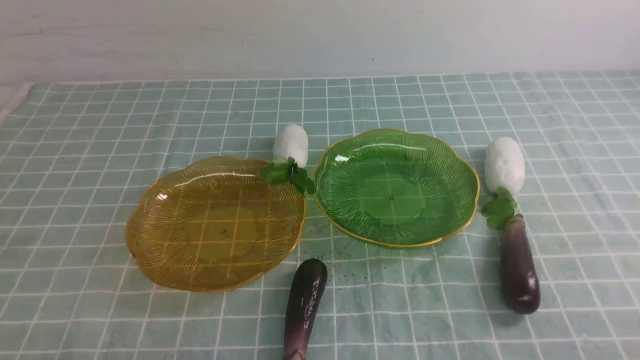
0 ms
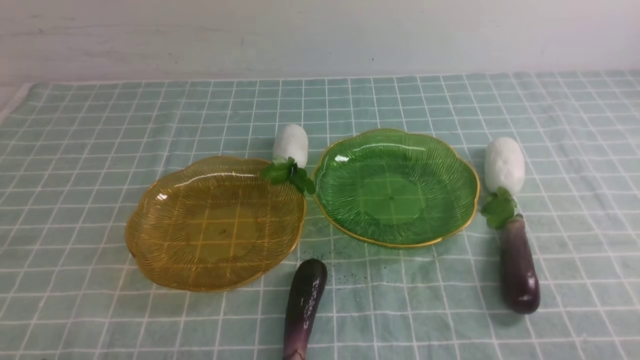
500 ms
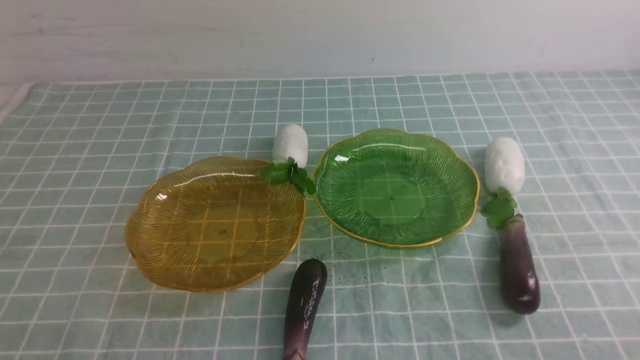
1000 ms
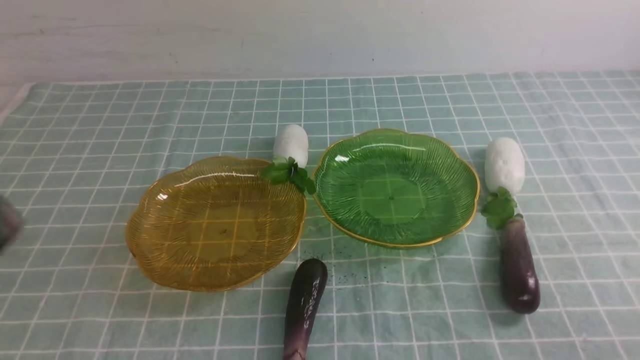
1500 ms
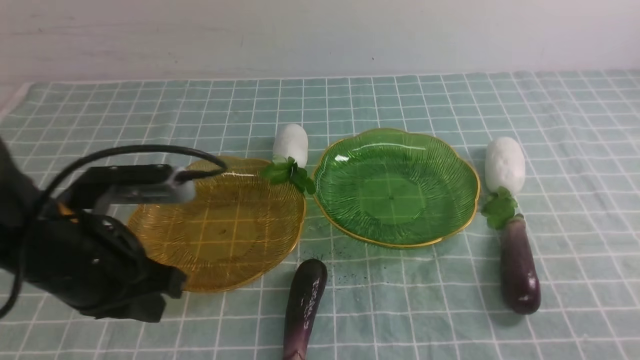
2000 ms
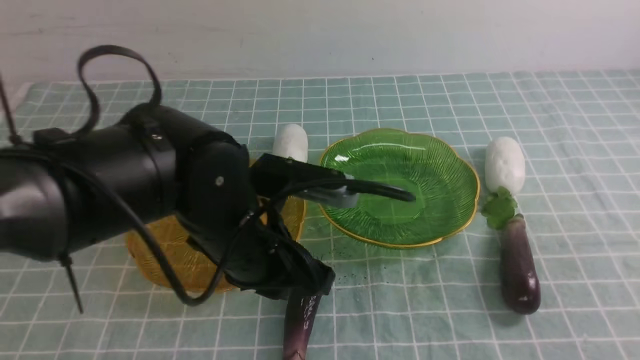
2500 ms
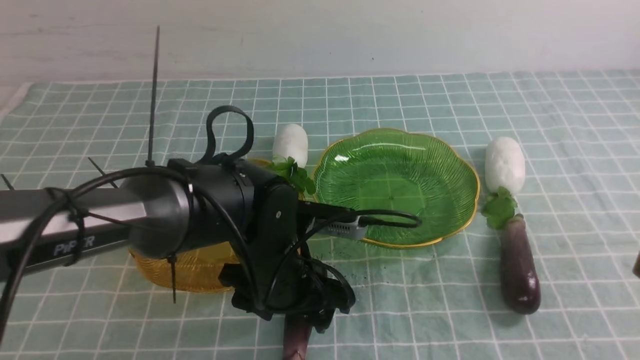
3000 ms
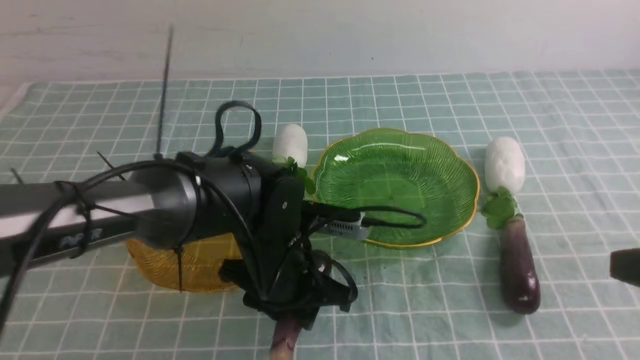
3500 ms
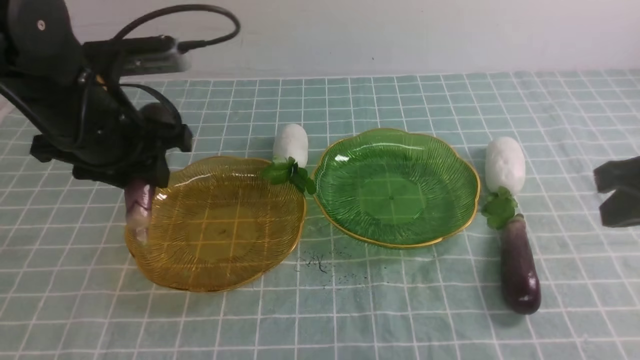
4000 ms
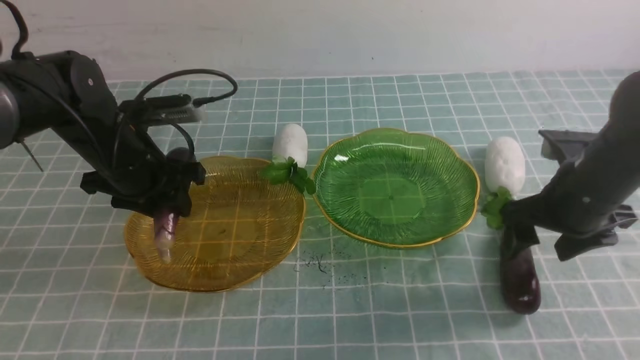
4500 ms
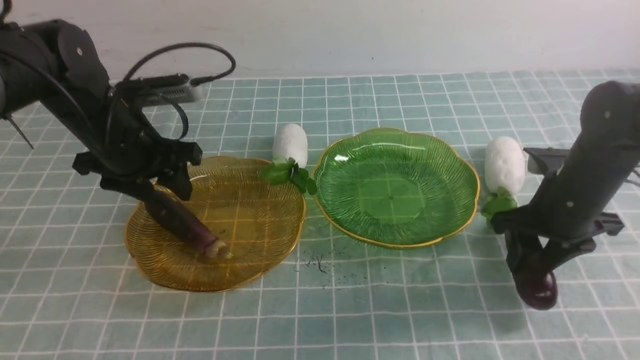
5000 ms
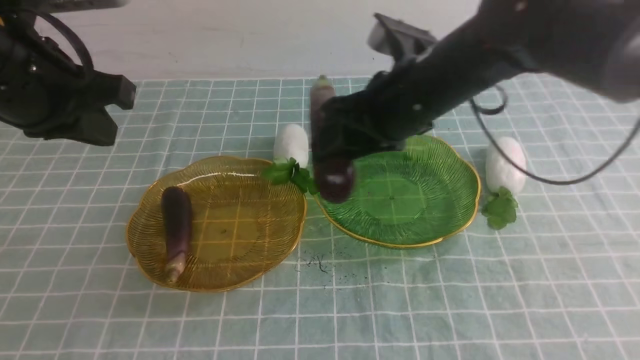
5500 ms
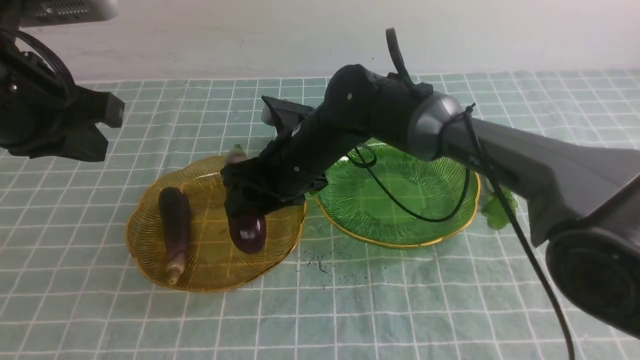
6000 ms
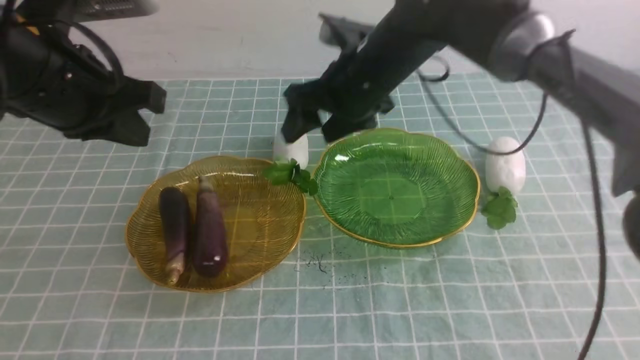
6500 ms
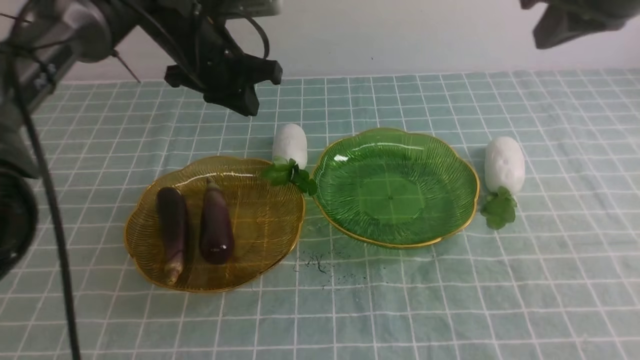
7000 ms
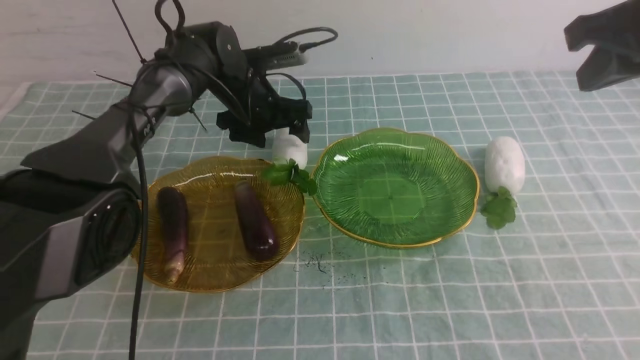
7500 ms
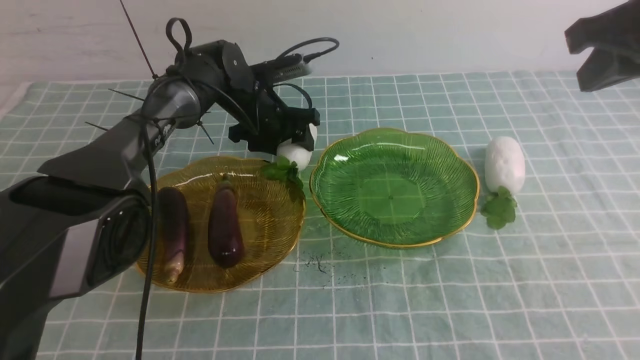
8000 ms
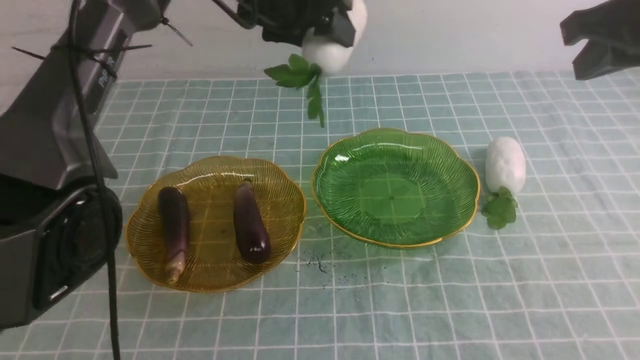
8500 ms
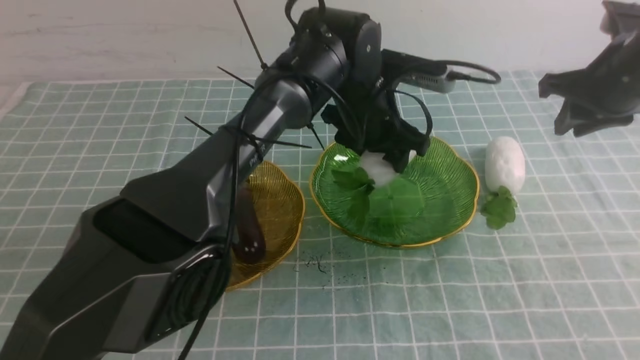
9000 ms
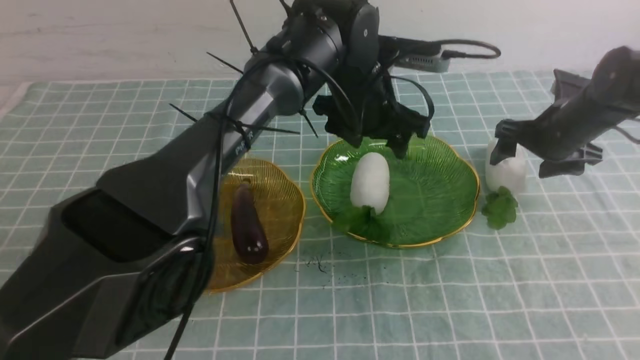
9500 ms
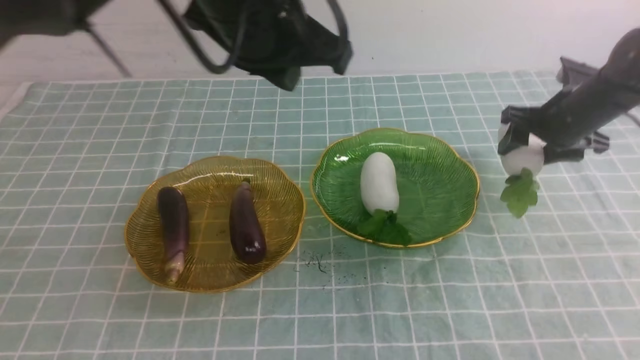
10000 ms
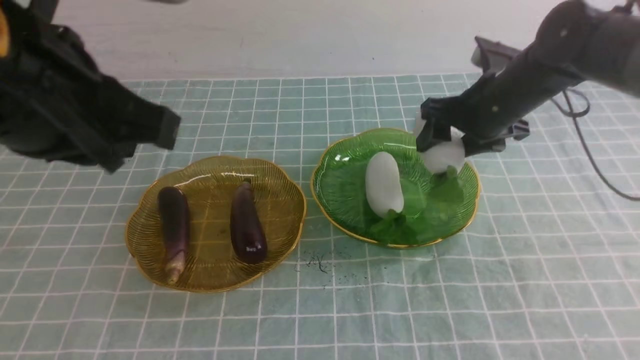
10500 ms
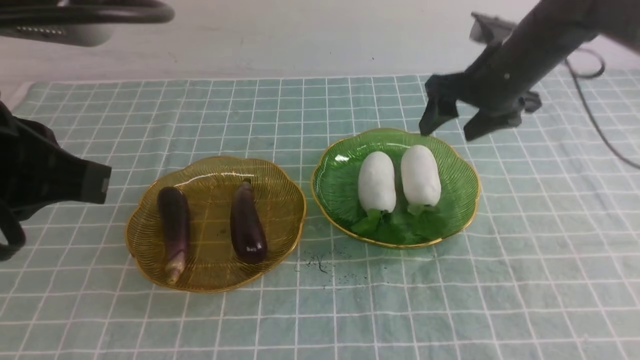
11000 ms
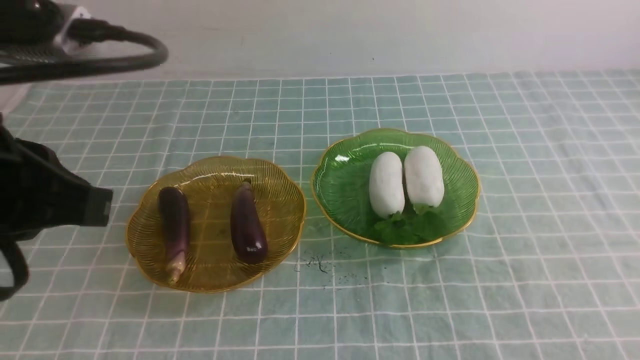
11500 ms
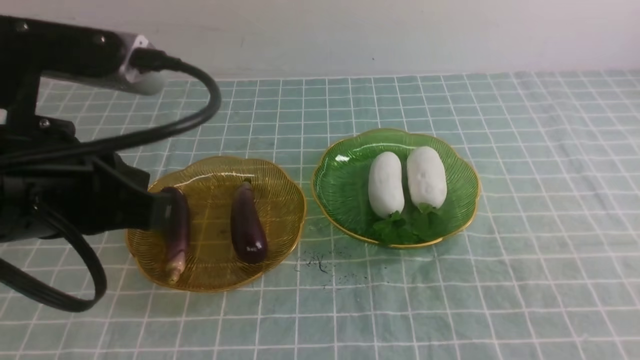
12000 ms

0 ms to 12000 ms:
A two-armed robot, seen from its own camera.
Step, 0 ms to 4500 ms: use the left arm to grab an eggplant and put it into the left plate.
Step, 5000 ms to 6000 ms: use the right arm to grab an eggplant and put it into the left plate.
Step, 6500 ms to 9000 ms: use the left arm to grab a radish and put it into the right plate.
Step, 9500 ms to 10500 ms: use the right arm to grab a radish and put it into the right plate.
0 ms to 2000 ms: The left gripper is displaced forward, upward and to the right by approximately 20 cm.
2000 ms to 4000 ms: The right gripper shifts about 20 cm forward. Meanwhile the left gripper travels forward by roughly 15 cm, travels to the right and back again, some 15 cm each way, and opens its fingers.
4000 ms to 6000 ms: The right gripper heads to the left and forward, covering roughly 30 cm, and opens its fingers, while the left gripper moves upward and backward, some 10 cm, and closes.
6000 ms to 8000 ms: The right gripper shifts approximately 35 cm to the right and upward, and closes its fingers, while the left gripper is displaced forward, downward and to the right by some 35 cm, and opens its fingers.
8000 ms to 10000 ms: The right gripper goes about 25 cm downward and forward, and opens its fingers. Meanwhile the left gripper is displaced backward and upward by some 30 cm, and closes.
10000 ms to 12000 ms: The left gripper travels backward and to the left by approximately 20 cm. Meanwhile the right gripper goes approximately 40 cm backward, and closes its fingers.

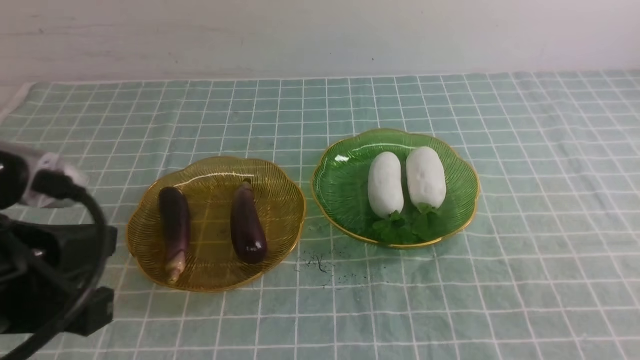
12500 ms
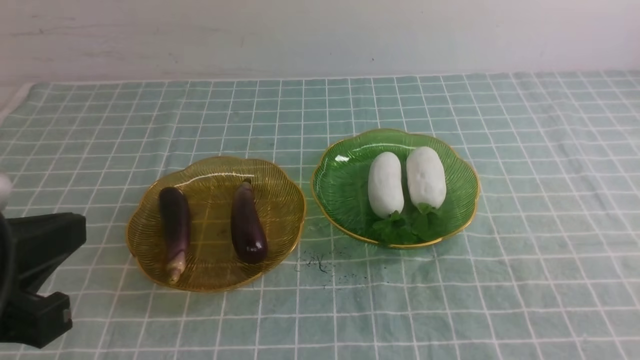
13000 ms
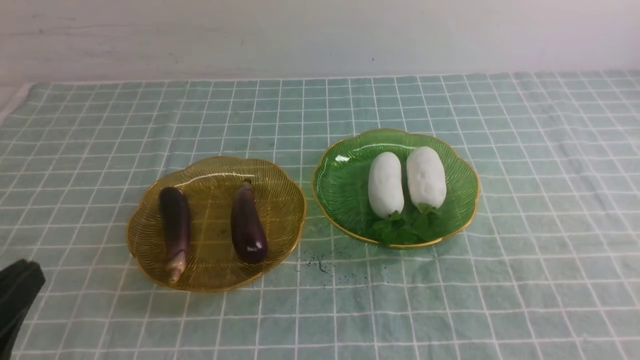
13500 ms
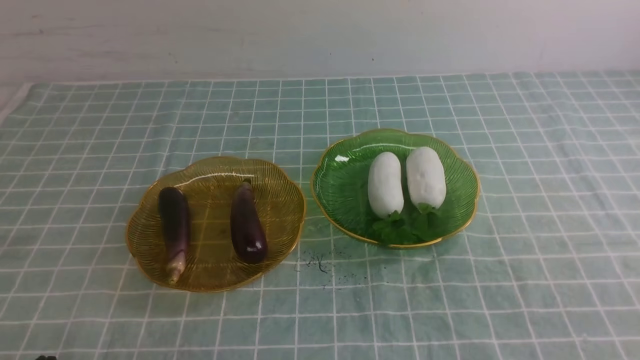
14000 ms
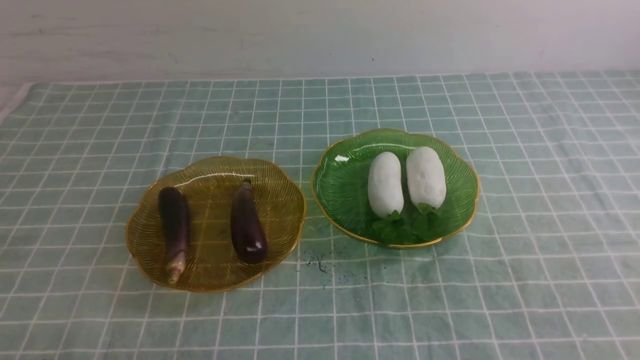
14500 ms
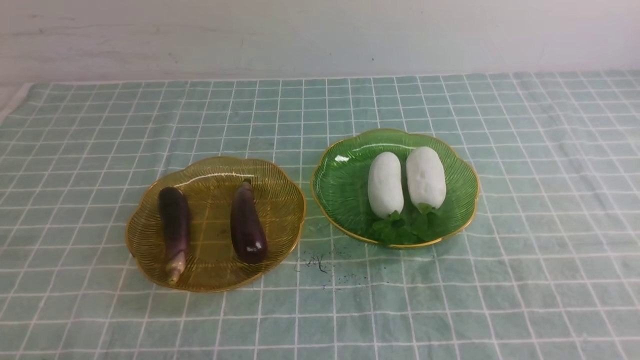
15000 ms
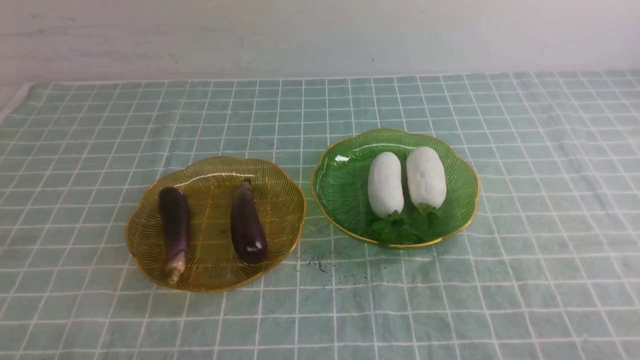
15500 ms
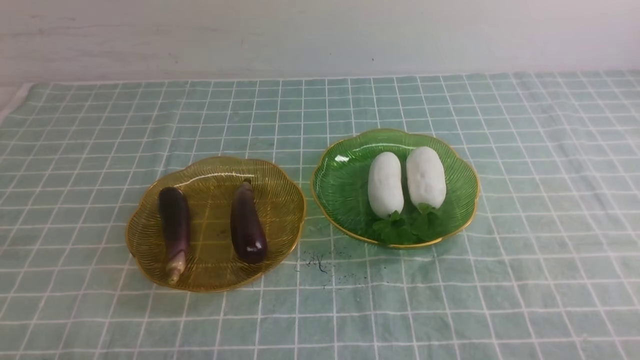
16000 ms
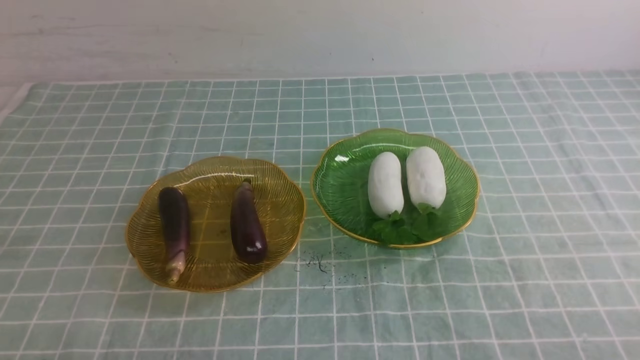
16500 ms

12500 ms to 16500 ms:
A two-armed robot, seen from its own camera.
12500 ms to 14500 ms: The left gripper is displaced downward by some 15 cm.
